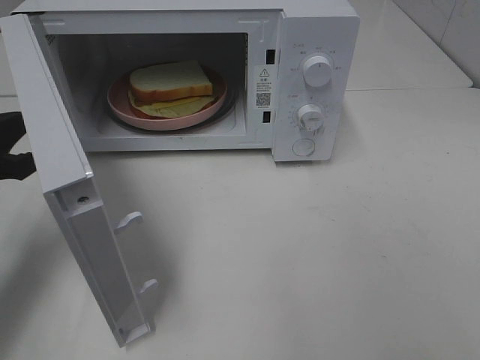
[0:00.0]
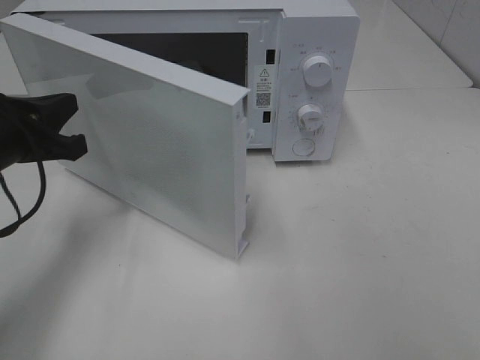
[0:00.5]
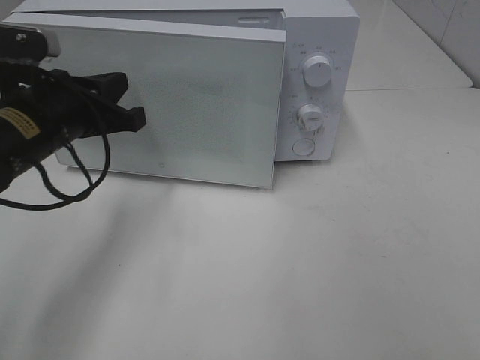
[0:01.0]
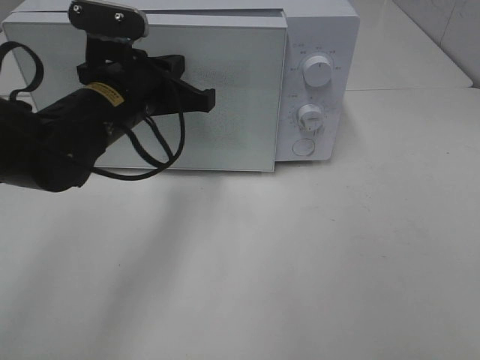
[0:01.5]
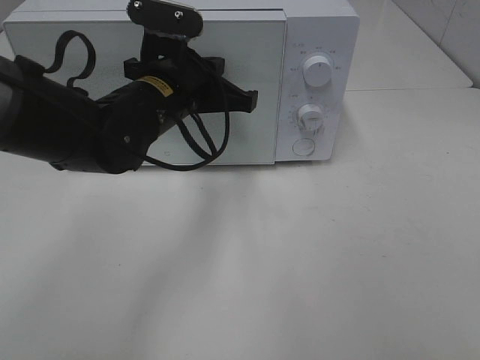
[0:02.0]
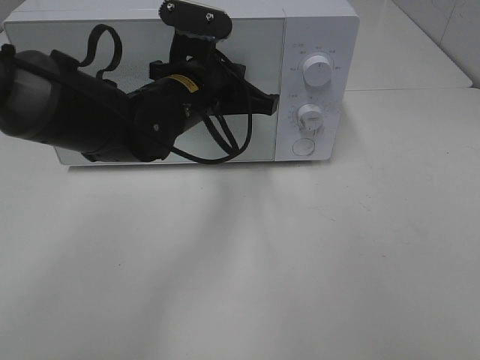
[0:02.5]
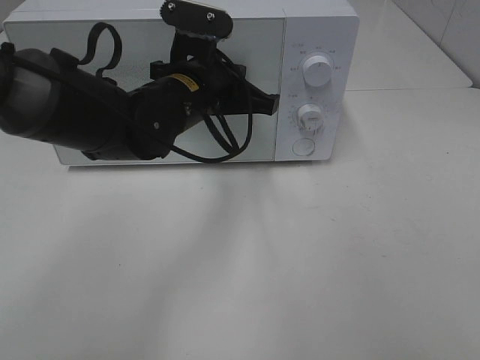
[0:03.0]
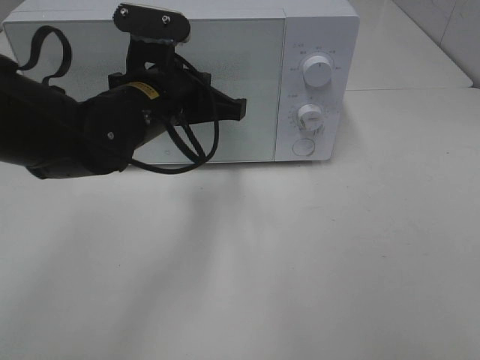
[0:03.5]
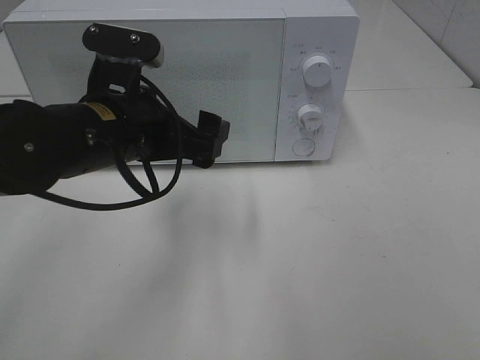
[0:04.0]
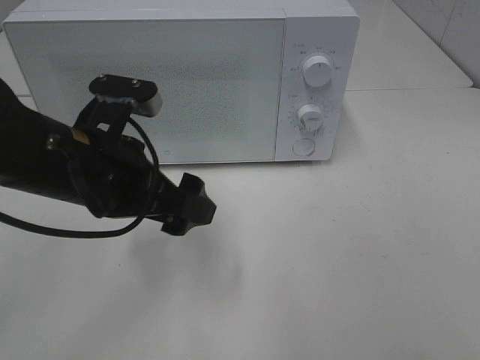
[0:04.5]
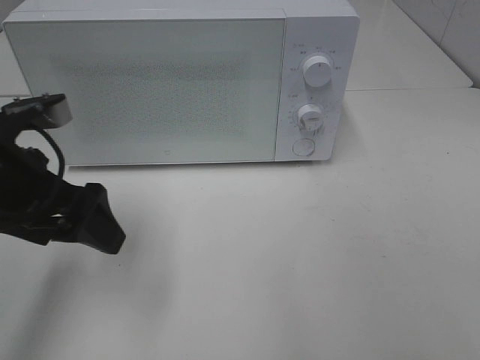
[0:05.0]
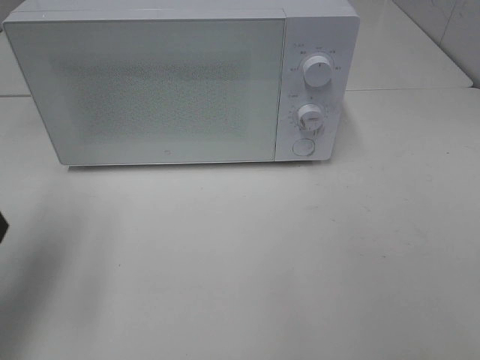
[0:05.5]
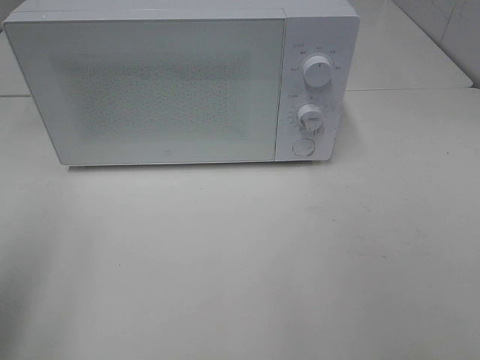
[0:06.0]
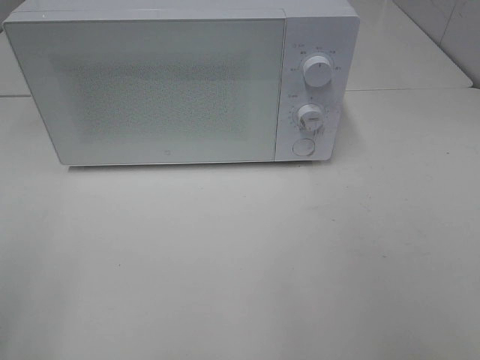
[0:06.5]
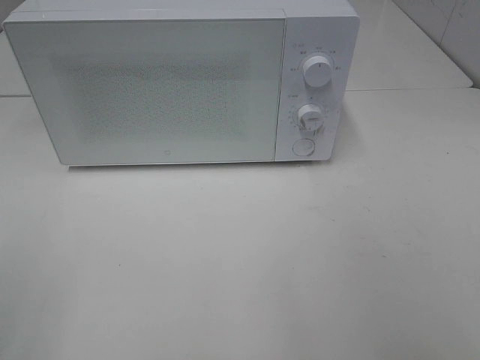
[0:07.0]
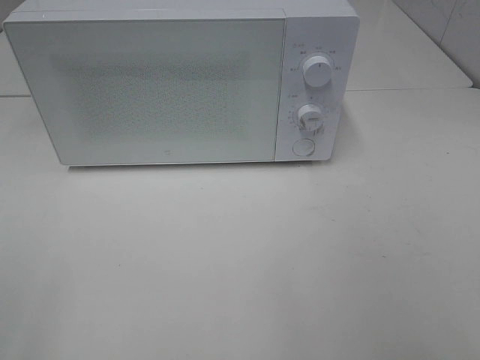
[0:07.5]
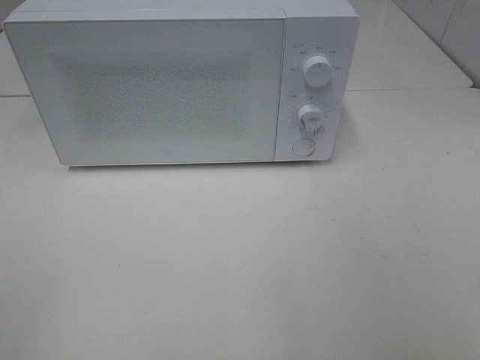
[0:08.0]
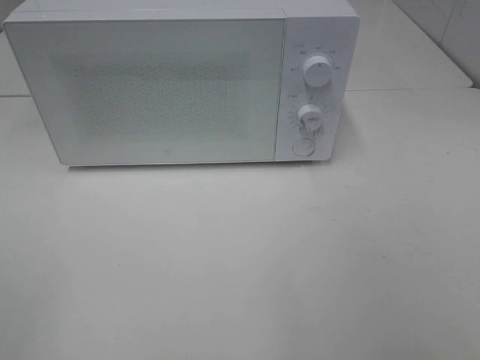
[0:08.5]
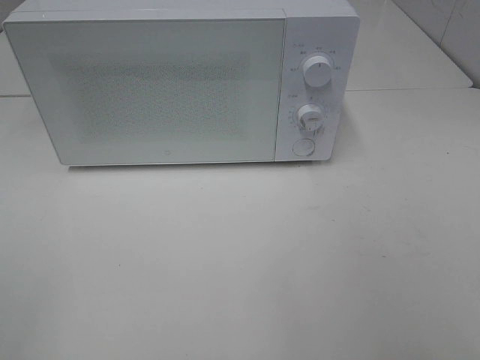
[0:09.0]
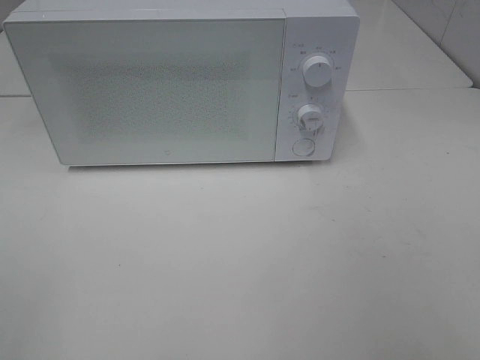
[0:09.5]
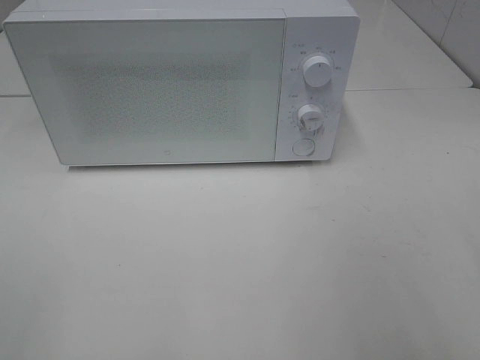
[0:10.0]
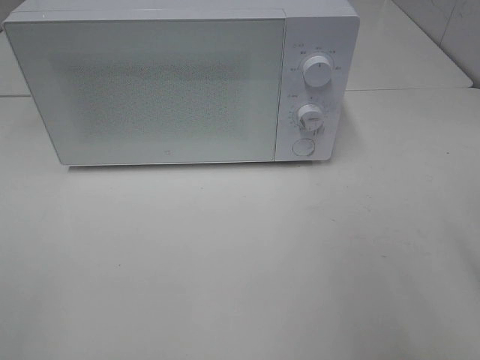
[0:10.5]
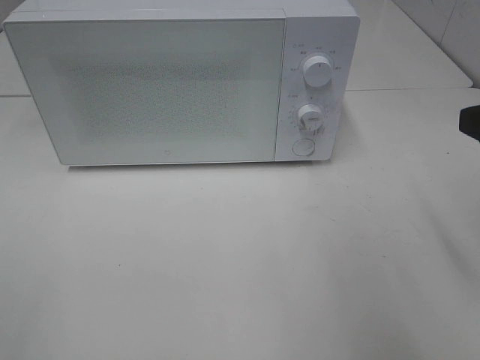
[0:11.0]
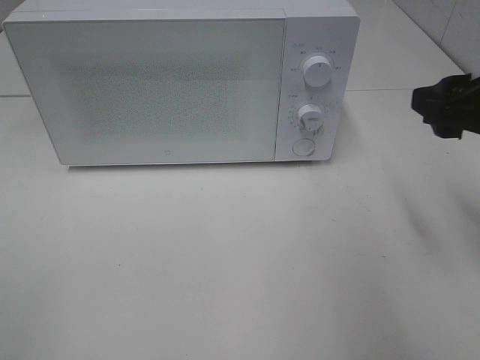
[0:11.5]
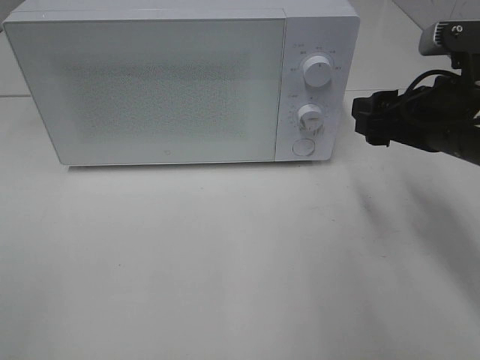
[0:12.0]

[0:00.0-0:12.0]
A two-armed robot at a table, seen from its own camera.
Task of the whole recording: Heat Sandwich.
Step, 0.0 to 3.5 s: Left hand: close the microwave door.
0.0 to 2.0 s: The left gripper shifts roughly 25 cm to the right and forward.
2.0 to 4.0 s: The left gripper shifts about 5 cm backward, and opens its fingers.
4.0 to 6.0 s: The left gripper travels to the left, backward and upward by some 25 cm.
6.0 to 8.0 s: The left gripper heads backward, covering some 10 cm.
10.0 to 12.0 s: The right gripper shifts approximately 20 cm forward and downward.

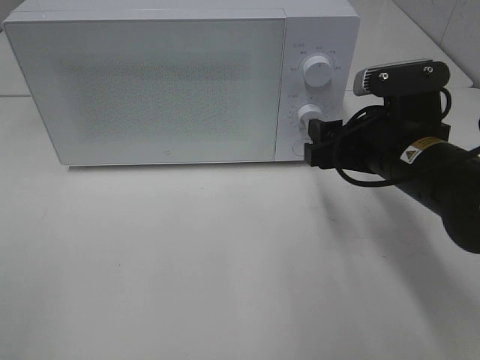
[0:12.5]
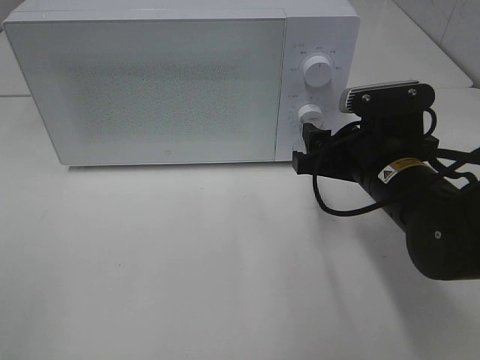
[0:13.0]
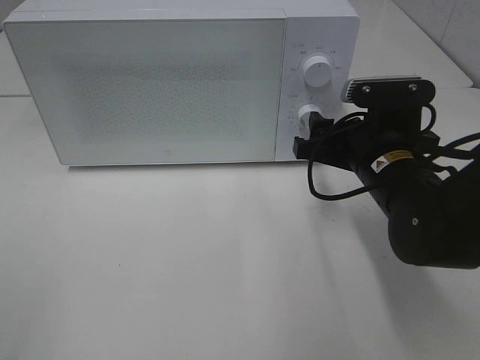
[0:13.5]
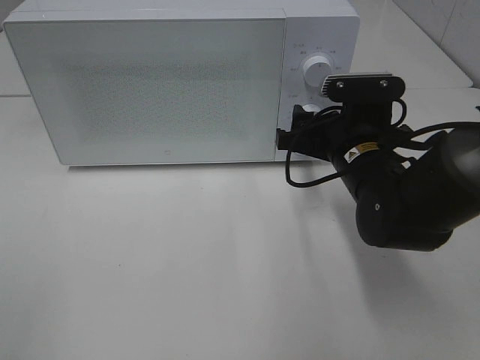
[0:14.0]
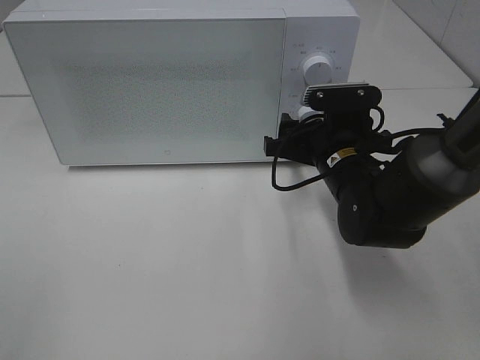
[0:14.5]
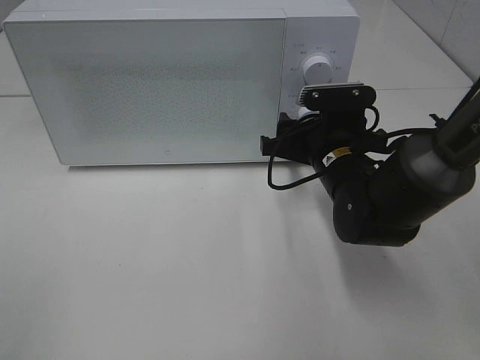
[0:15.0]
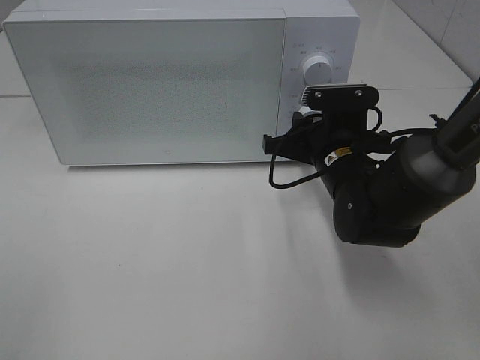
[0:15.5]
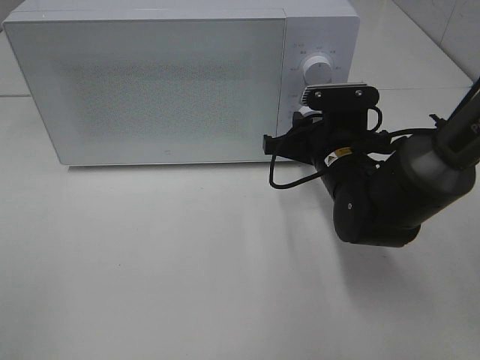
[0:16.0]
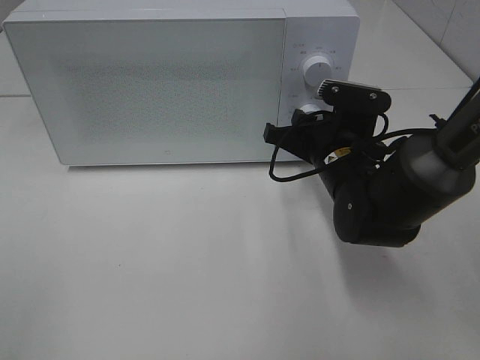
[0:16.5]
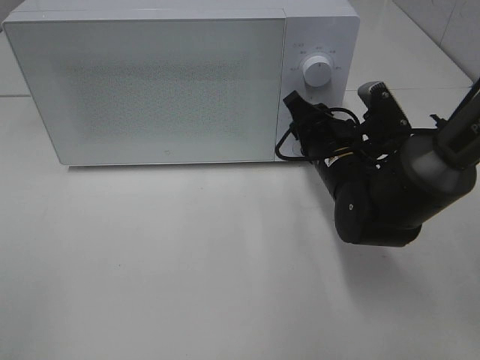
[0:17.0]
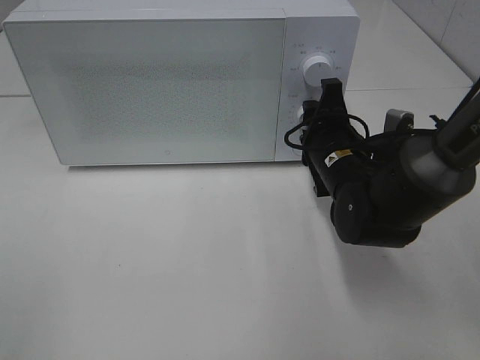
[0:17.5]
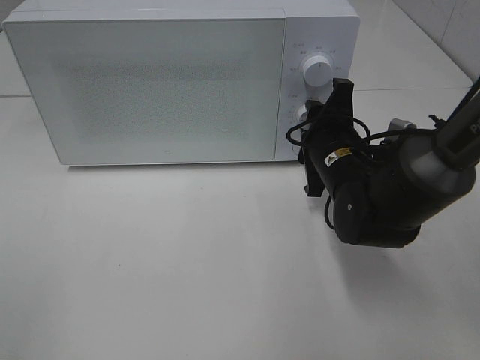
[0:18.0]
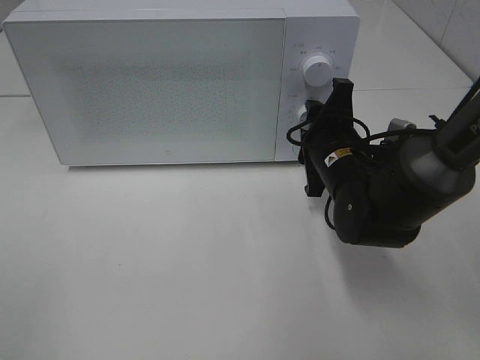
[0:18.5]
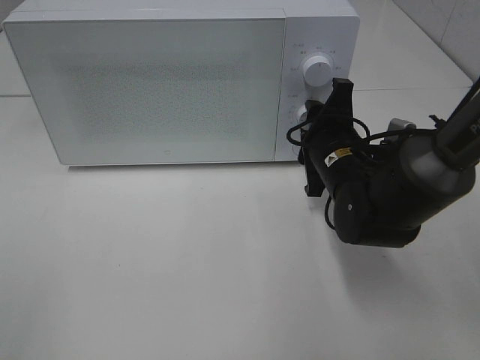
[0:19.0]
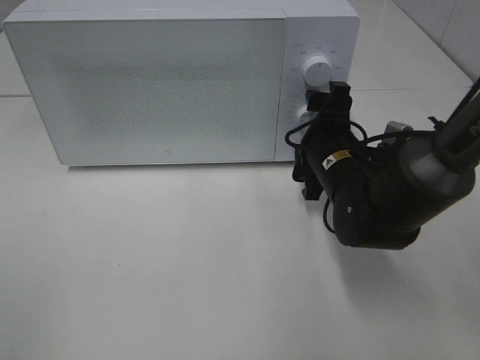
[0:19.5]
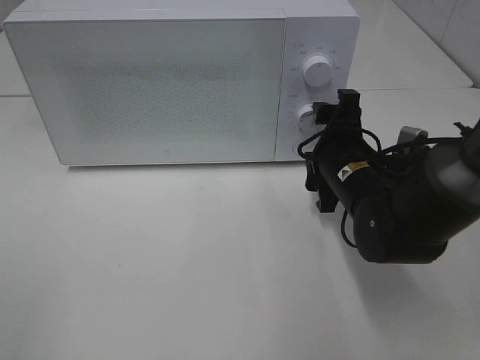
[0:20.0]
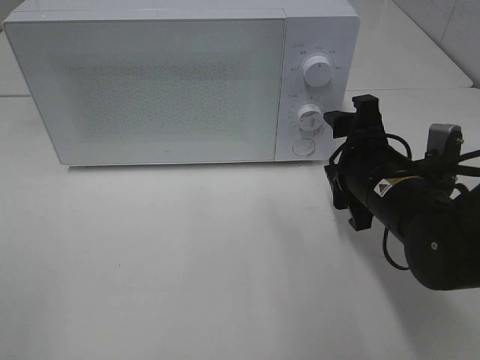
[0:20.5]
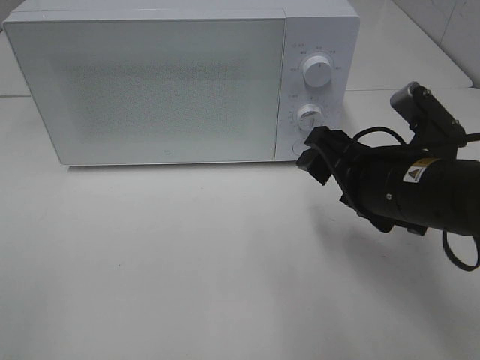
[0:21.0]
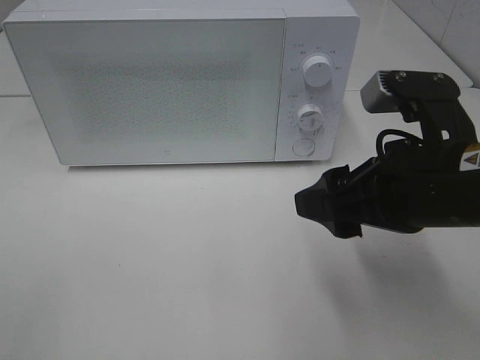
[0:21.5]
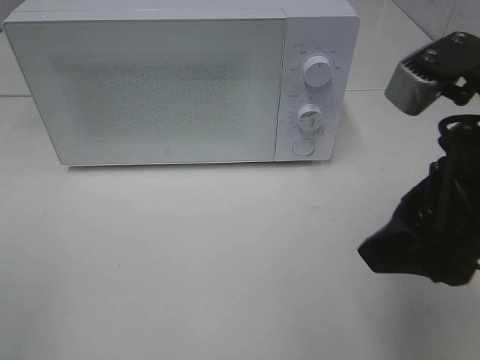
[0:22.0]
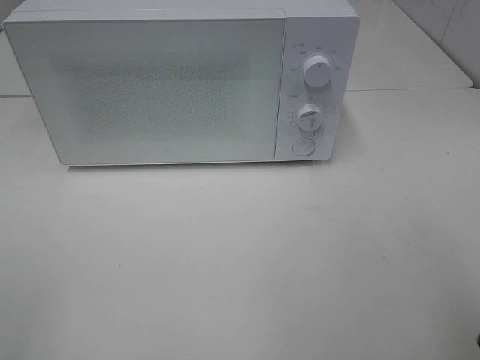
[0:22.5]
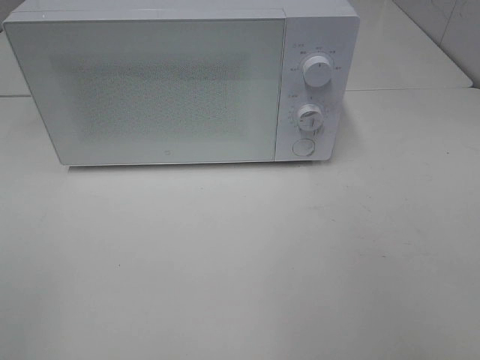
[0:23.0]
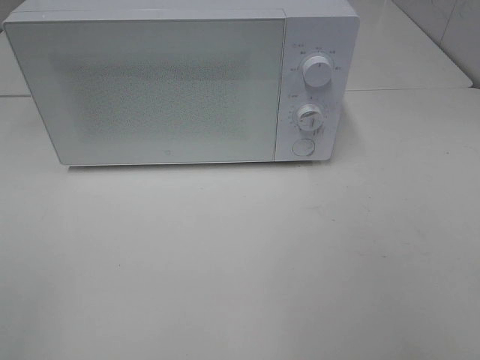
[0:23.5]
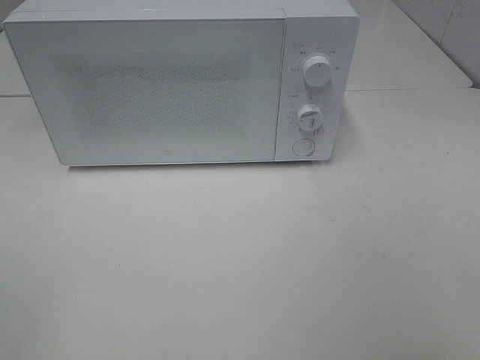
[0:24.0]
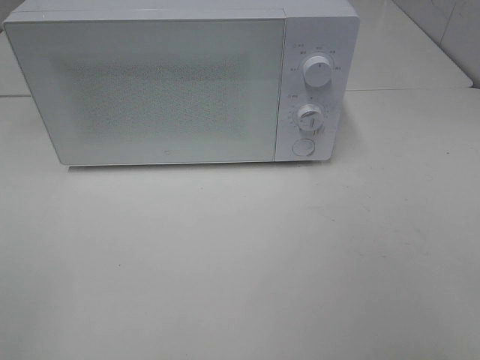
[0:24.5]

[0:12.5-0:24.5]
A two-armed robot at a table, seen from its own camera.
Task of the whole recording: Heat Sandwich.
Step, 12.5 to 20.0 s: Right hand: twist timer button.
12.5 to 14.5 s: The right gripper moves forward and downward, roughly 10 cm.
14.5 to 16.5 s: The right gripper closes its fingers.
18.5 to 20.5 s: The right gripper is displaced backward by roughly 5 cm, and opens its fingers.
20.5 to 22.5 s: The right gripper travels upward and backward by some 25 cm.
22.5 to 24.5 s: The right gripper is displaced backward and to the right by approximately 10 cm.

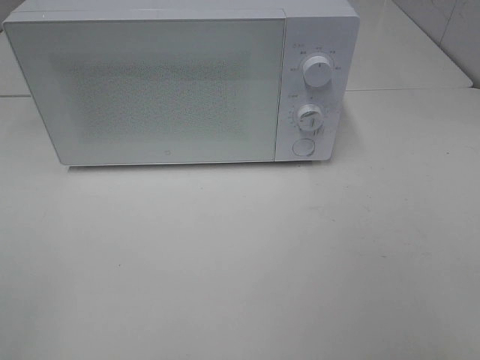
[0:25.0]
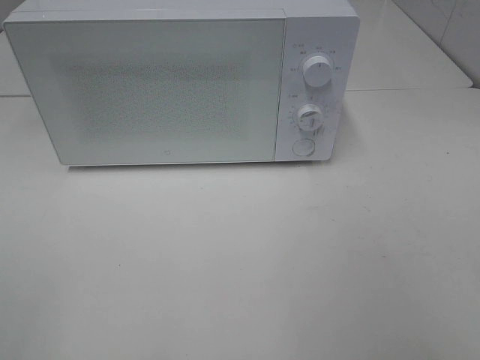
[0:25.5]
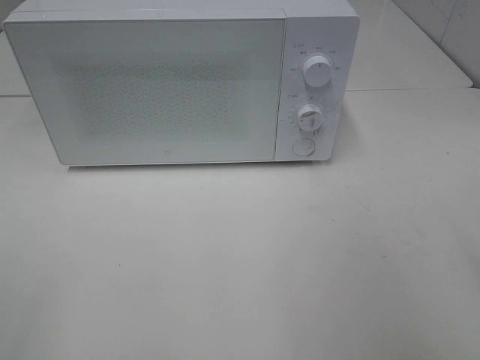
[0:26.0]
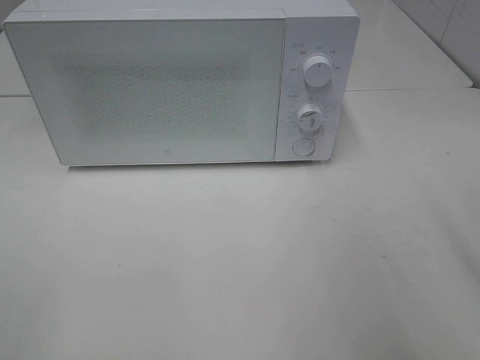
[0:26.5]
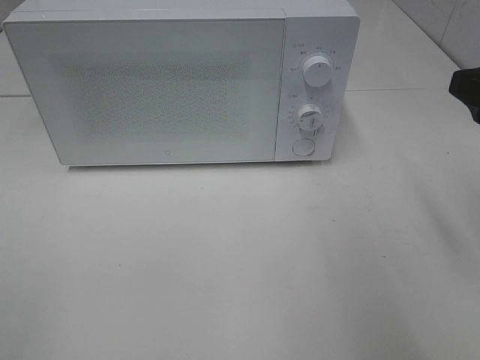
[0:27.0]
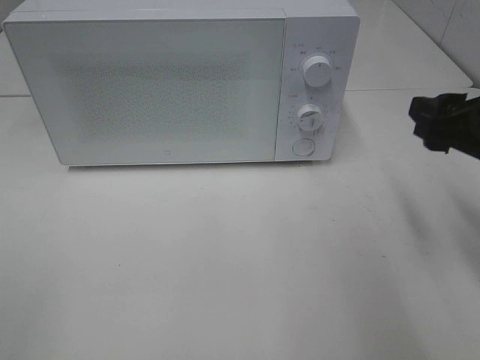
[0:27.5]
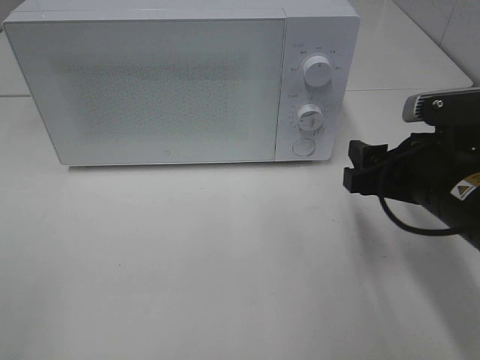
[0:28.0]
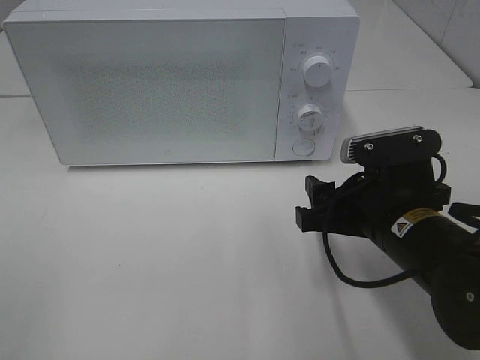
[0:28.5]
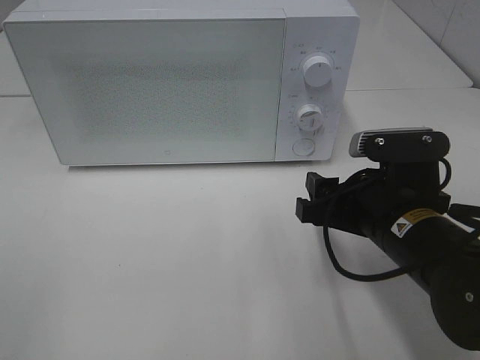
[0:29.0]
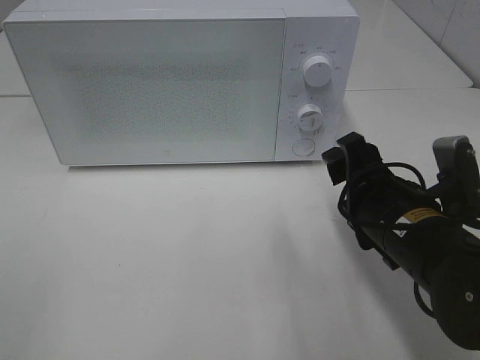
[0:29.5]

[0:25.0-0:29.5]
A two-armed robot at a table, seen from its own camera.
Task of the whole recording: Heat Sandwich.
25.0 to 27.0 s: The right gripper travels forward by roughly 20 cm.
27.0 to 29.5 s: The right gripper travels downward and to the left by about 20 cm.
